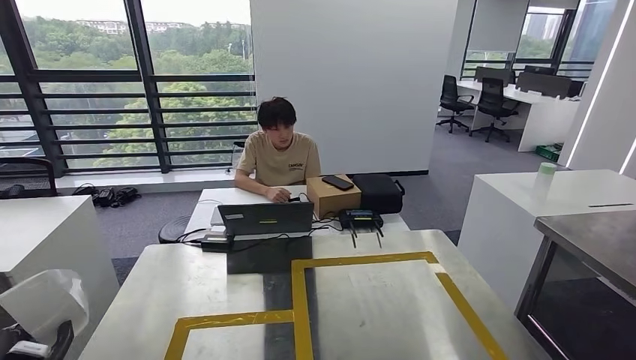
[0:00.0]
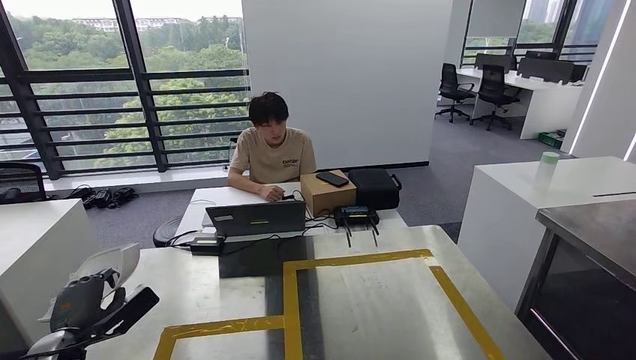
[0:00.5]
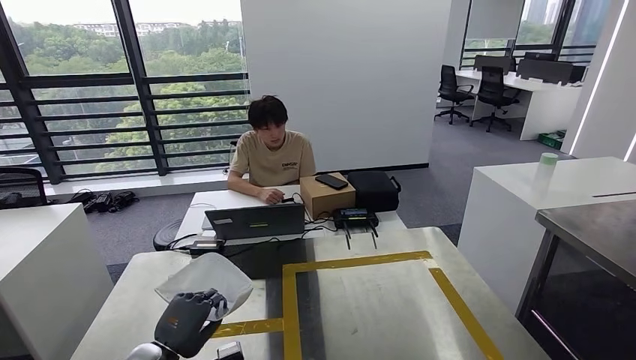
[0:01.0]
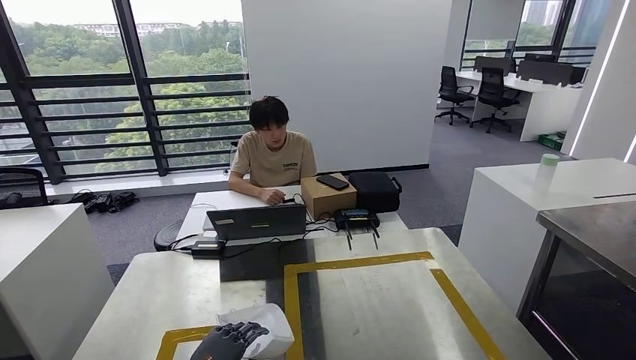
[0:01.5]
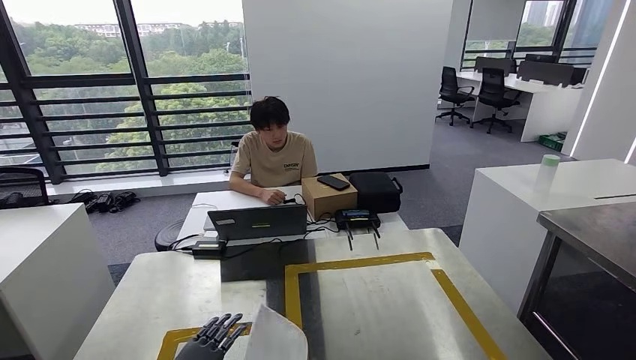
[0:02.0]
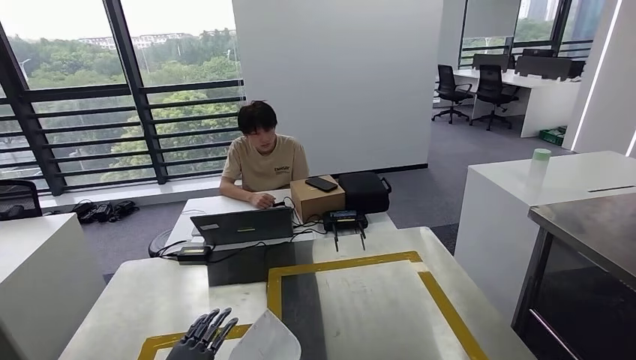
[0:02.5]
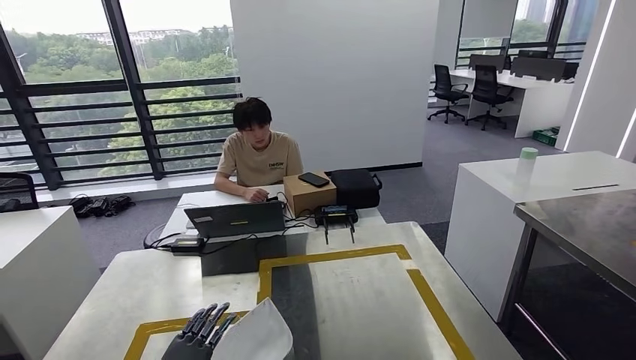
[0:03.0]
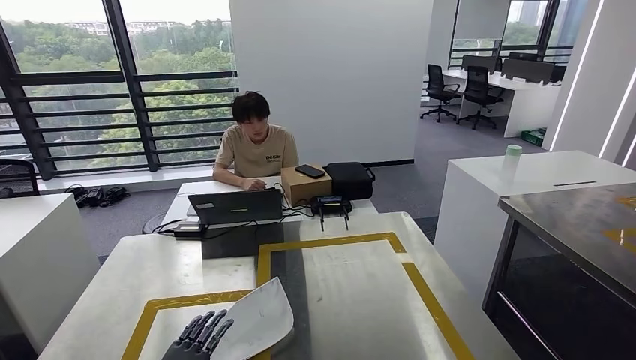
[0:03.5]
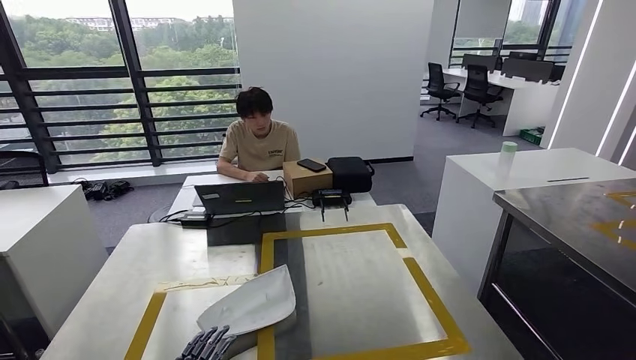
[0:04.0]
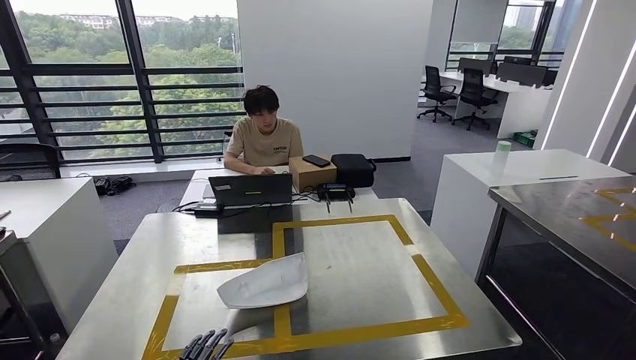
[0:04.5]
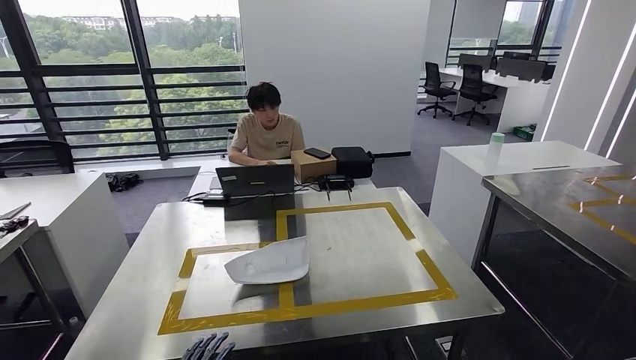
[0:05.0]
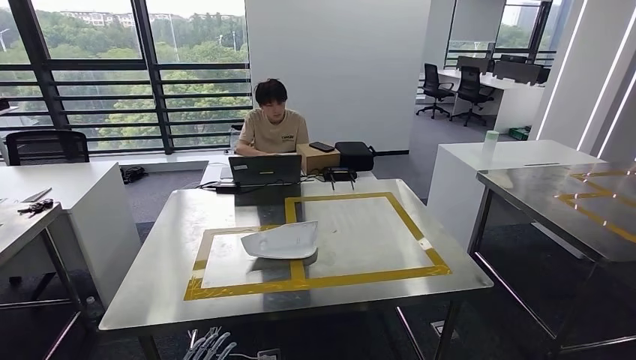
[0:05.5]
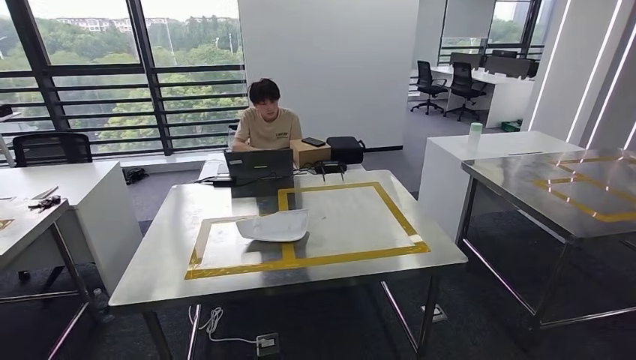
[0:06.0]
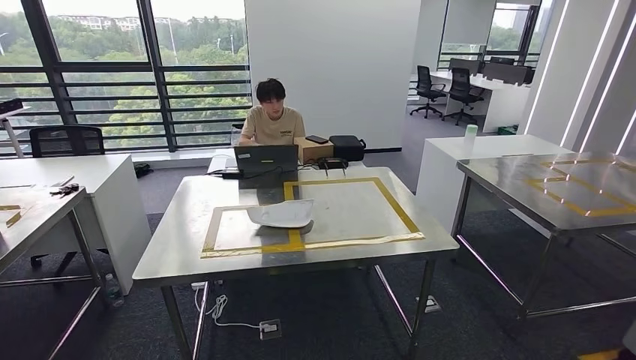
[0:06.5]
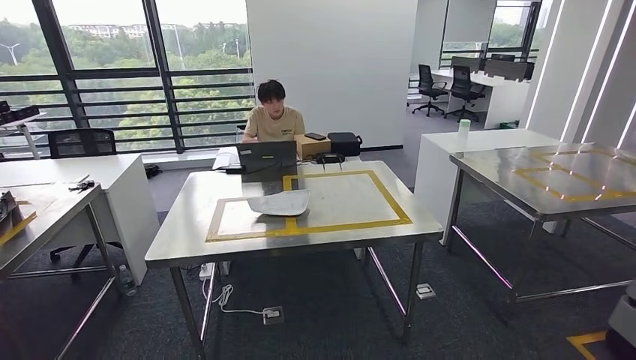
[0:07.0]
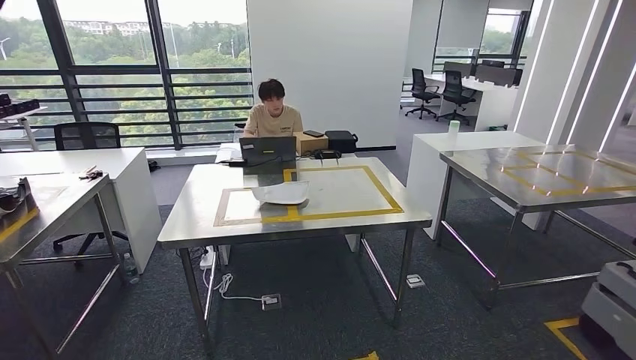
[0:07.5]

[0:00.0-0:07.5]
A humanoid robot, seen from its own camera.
Step, 0:00.5 to 0:02.5: Insert the small parts into the corresponding slots on the workbench.
Step, 0:06.0 to 0:07.5: Return to the initial position at the workbench.

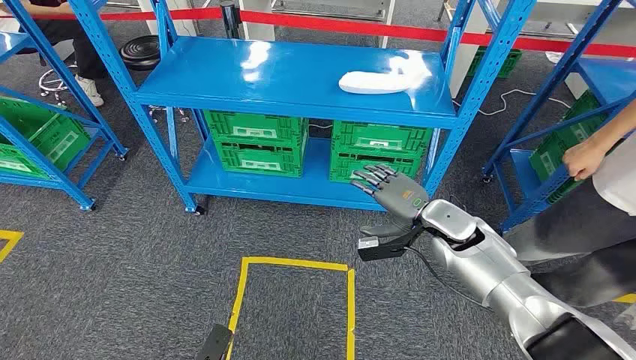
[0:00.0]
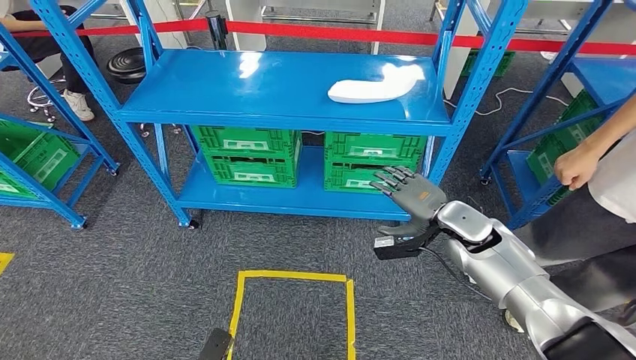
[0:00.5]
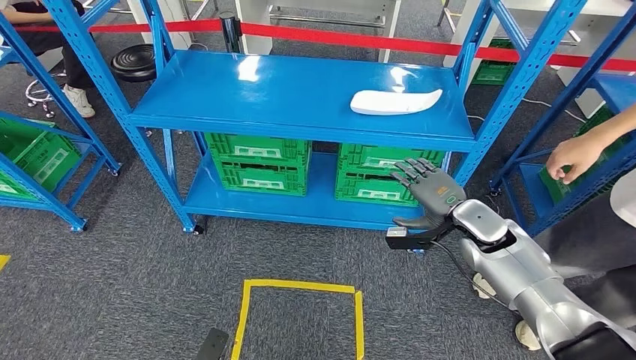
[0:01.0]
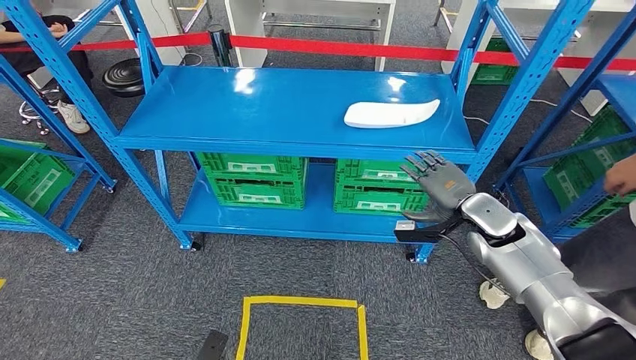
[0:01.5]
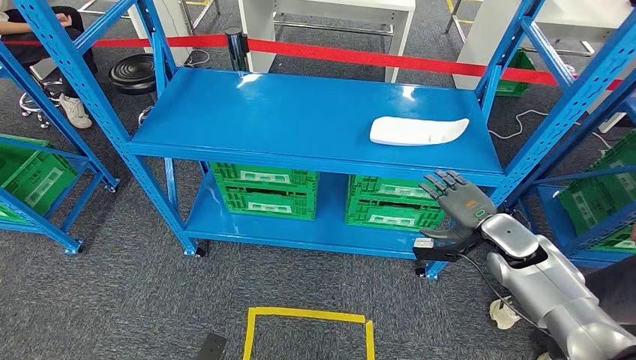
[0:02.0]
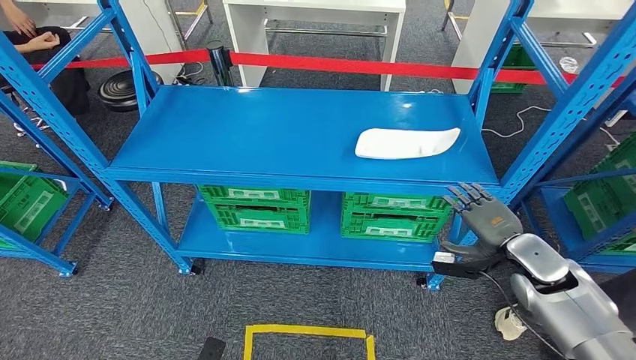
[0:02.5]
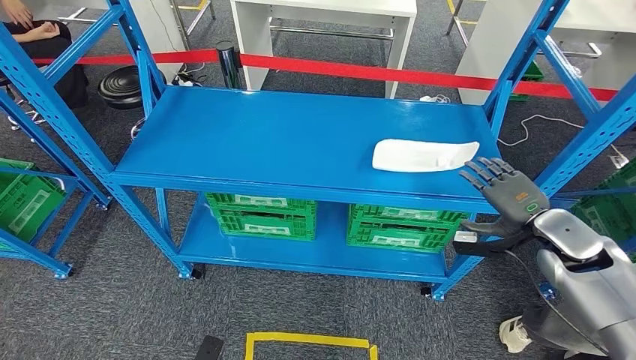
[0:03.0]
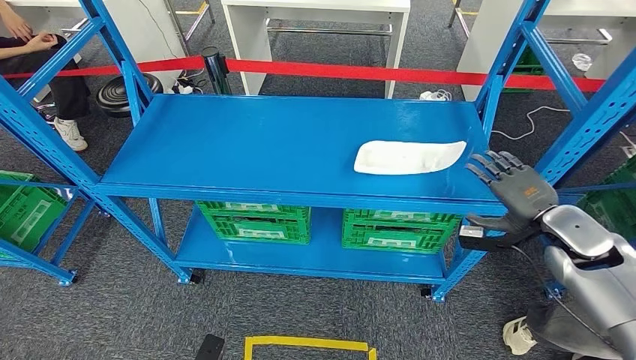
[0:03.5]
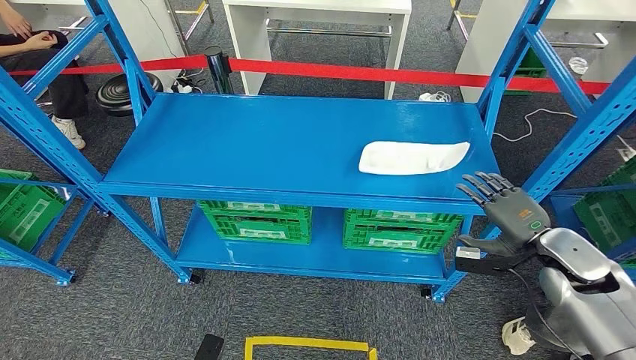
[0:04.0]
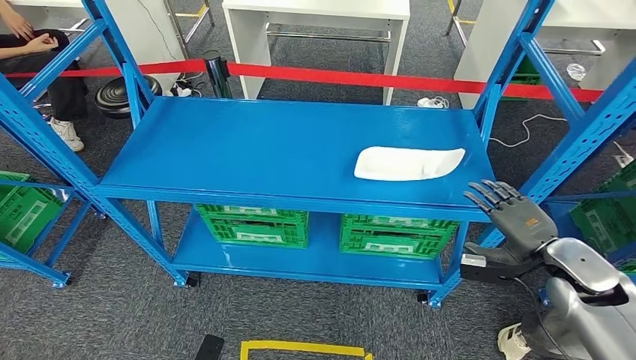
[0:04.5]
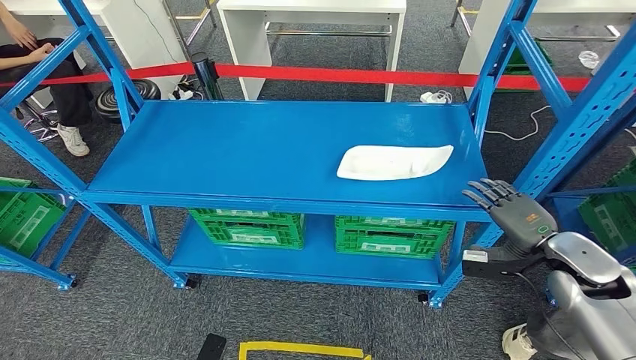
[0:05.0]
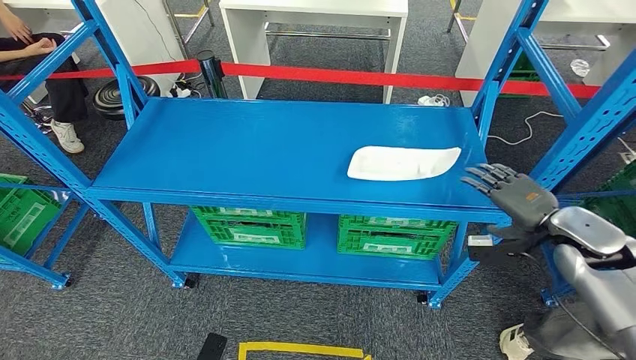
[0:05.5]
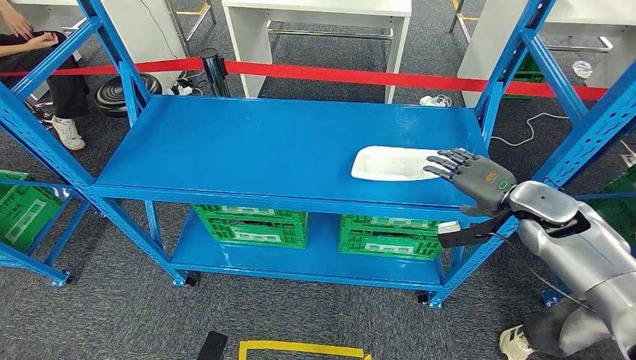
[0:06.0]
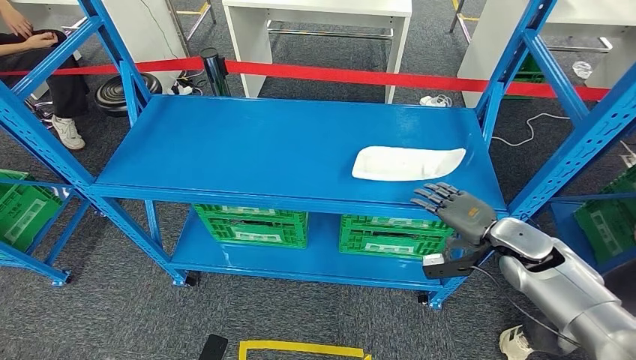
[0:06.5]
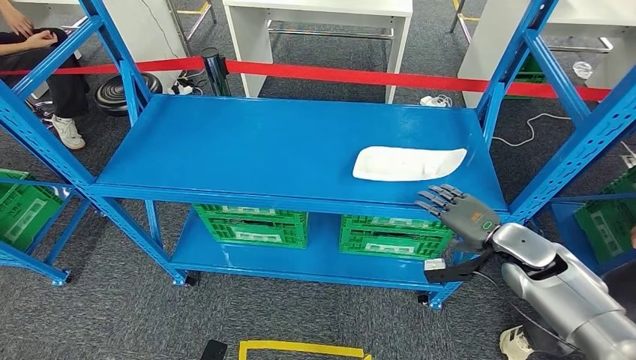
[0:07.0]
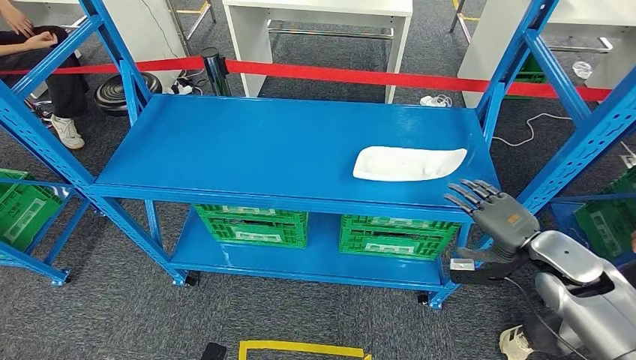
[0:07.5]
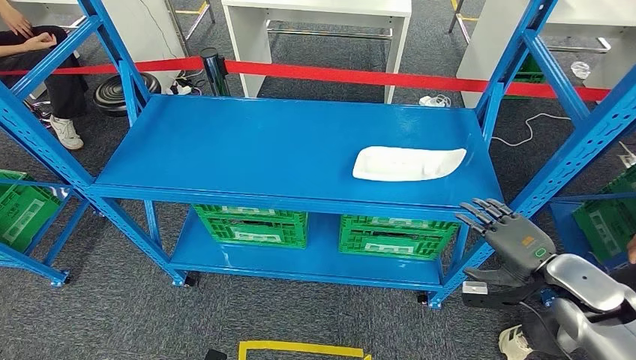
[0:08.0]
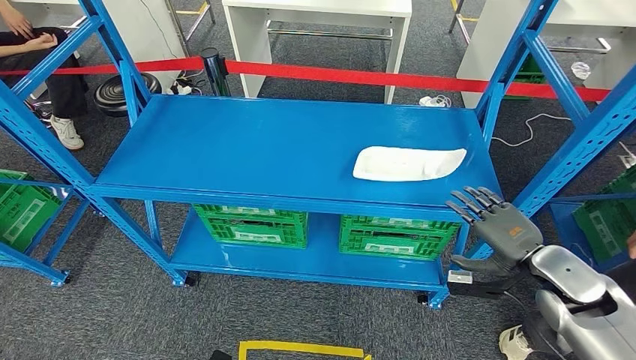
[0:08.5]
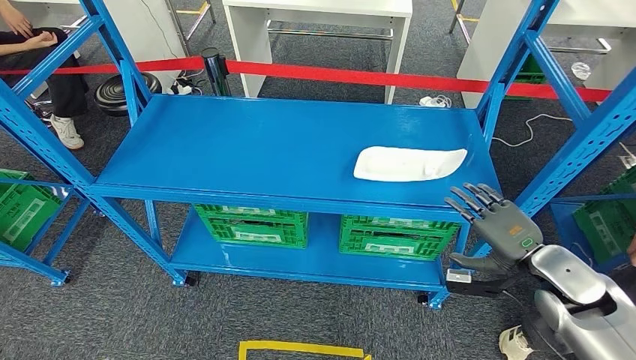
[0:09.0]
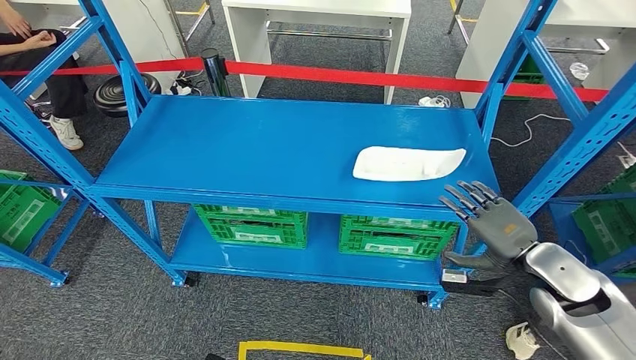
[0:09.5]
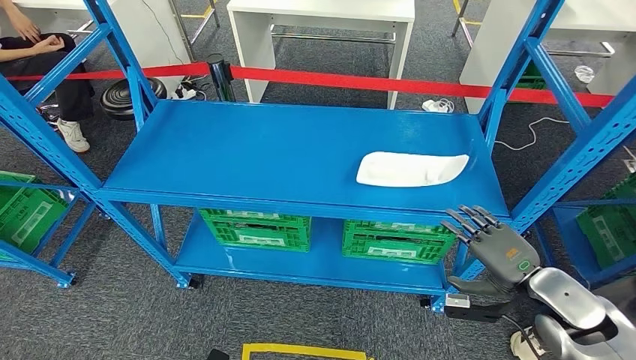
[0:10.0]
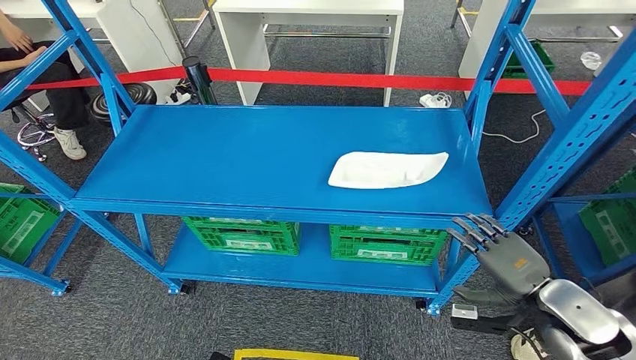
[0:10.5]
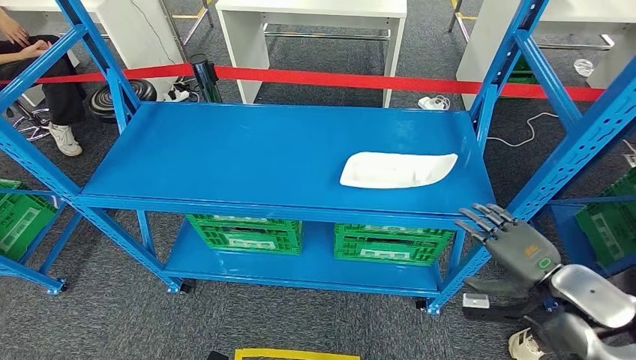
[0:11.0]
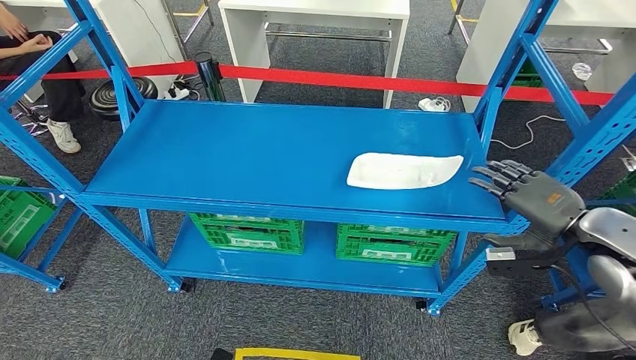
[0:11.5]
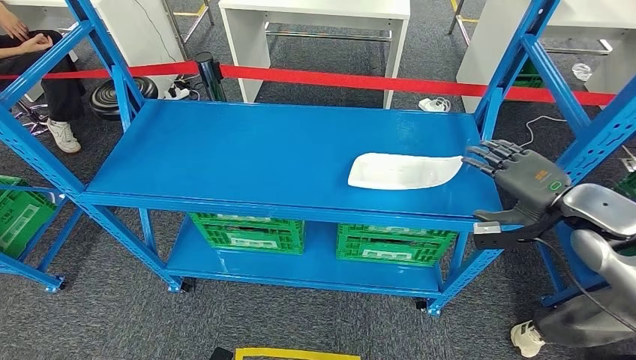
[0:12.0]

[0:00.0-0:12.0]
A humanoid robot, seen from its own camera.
0:06.0 to 0:08.0: The right hand heads backward, covering about 10 cm.

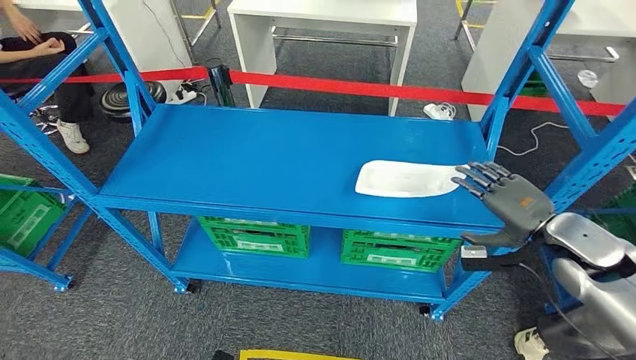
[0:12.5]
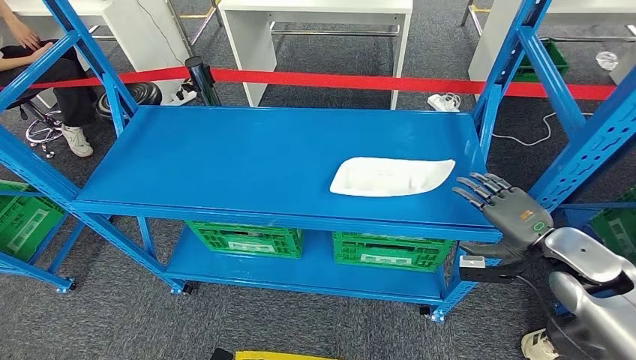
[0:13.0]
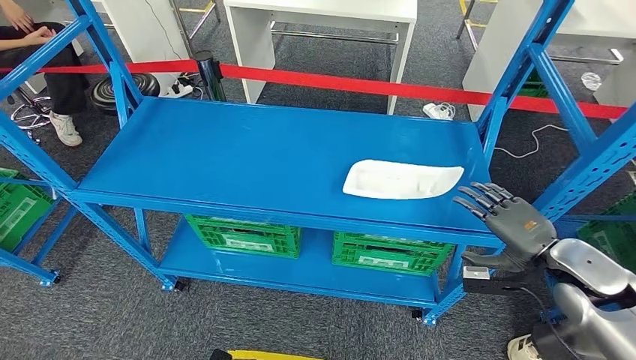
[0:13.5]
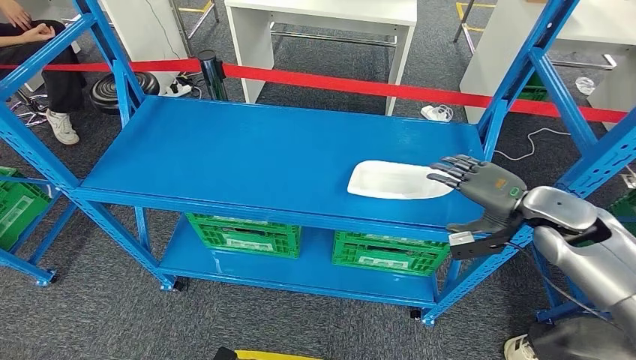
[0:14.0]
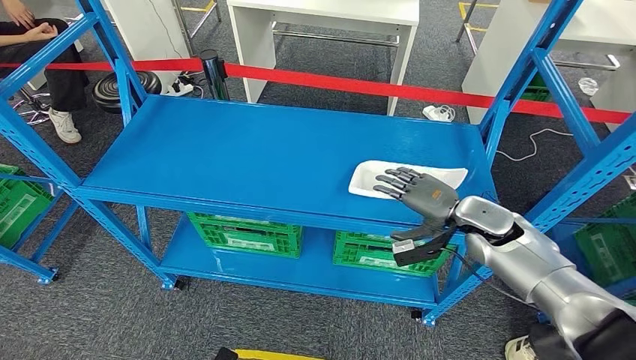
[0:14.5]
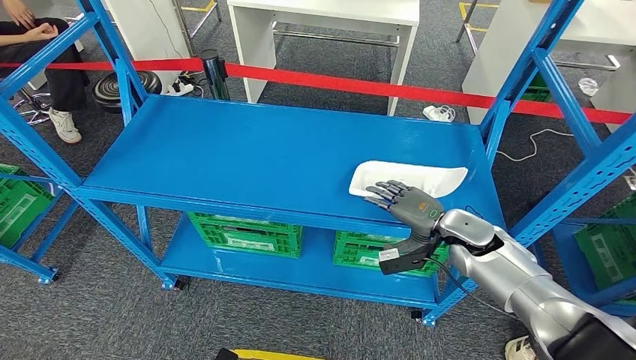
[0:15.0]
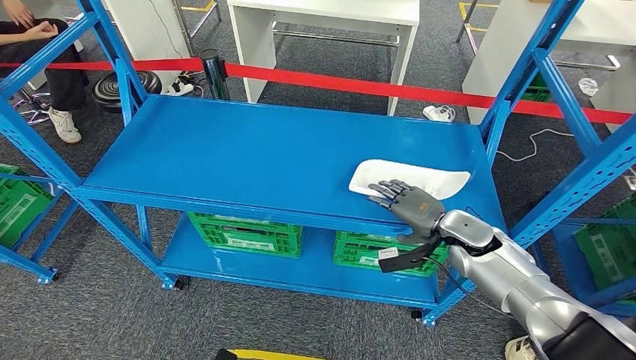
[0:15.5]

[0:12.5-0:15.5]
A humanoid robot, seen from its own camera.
0:14.0 to 0:15.5: The right hand goes approximately 15 cm downward and to the left.
